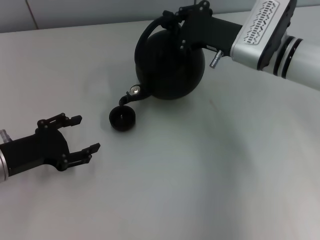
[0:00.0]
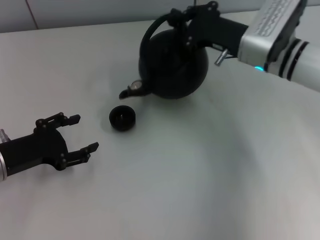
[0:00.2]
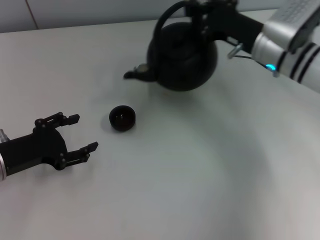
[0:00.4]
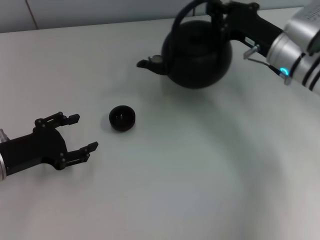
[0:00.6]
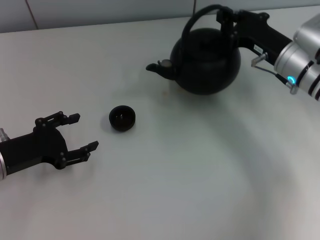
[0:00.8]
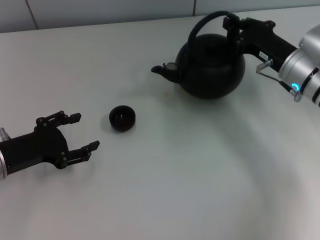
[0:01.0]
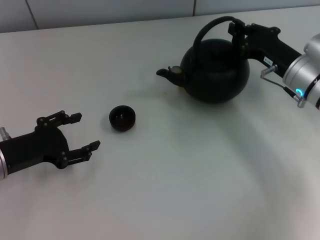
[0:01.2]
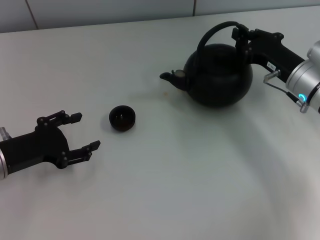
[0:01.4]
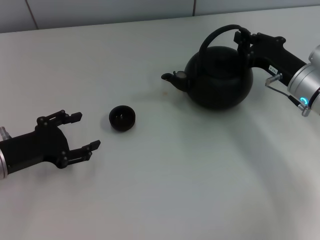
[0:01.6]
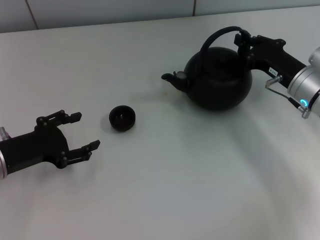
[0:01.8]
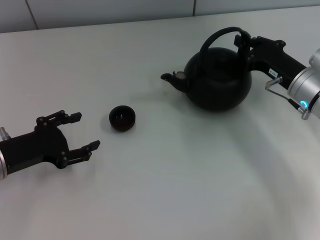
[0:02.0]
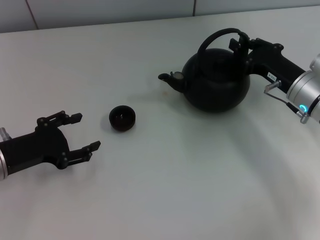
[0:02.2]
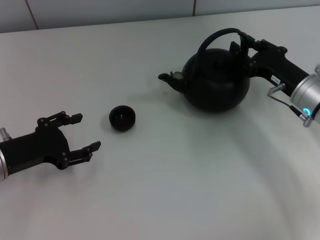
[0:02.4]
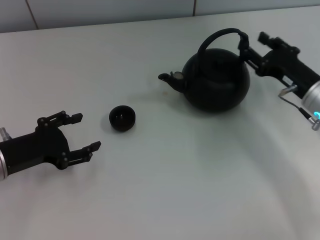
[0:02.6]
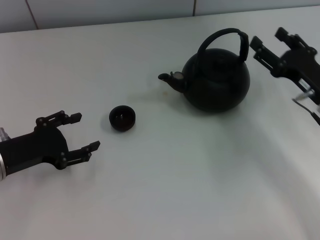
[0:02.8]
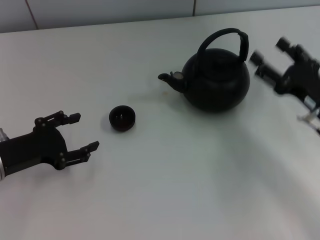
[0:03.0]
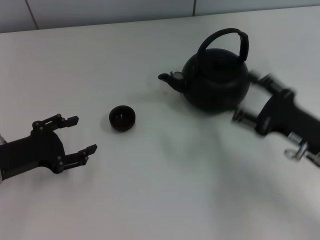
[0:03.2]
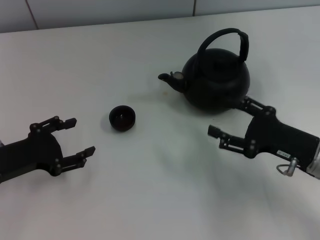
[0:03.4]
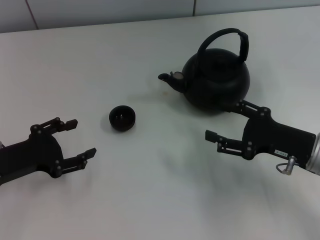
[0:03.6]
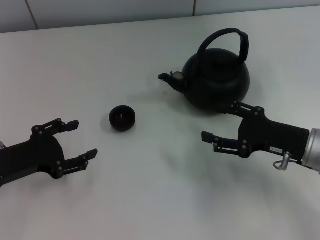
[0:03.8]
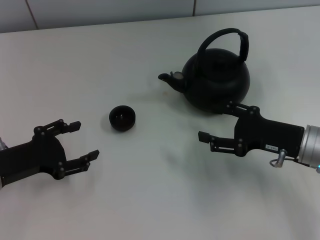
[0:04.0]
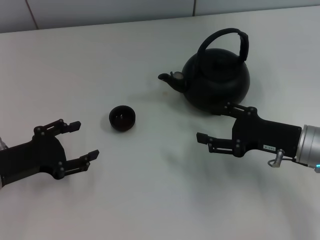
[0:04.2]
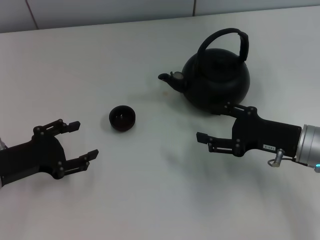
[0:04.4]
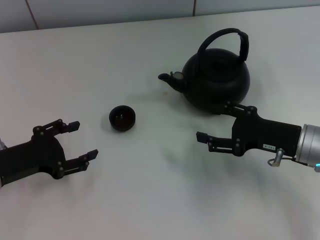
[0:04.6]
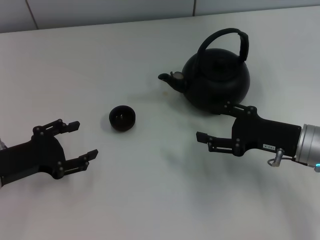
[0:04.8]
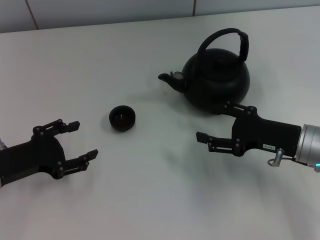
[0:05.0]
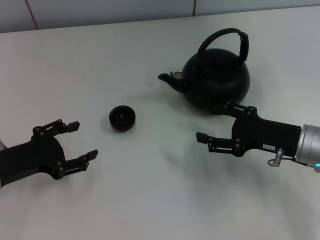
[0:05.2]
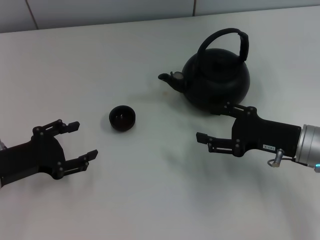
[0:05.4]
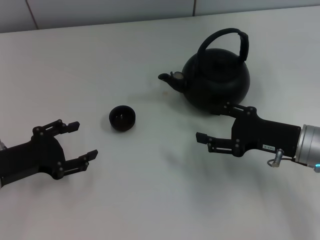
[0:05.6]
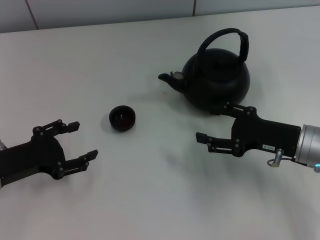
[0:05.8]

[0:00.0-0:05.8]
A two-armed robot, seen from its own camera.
Task of the whole recording: Grasp the handle of the teapot with one hand and pour tea into the teacup.
Step, 0:00.6 to 0:03.0: Put down the teapot with the right gripper.
0:00.0 to 0:01.4: The right gripper heads to the right and downward, covering approximately 10 cm.
0:01.4 to 0:02.8: The right gripper travels backward by some 5 cm, and opens.
0:02.8 to 0:04.4: The right gripper opens.
0:04.4 to 0:05.8: Neither gripper changes place.
